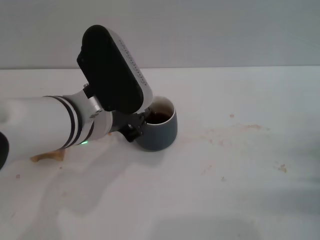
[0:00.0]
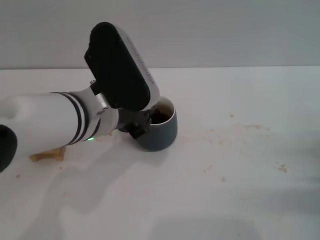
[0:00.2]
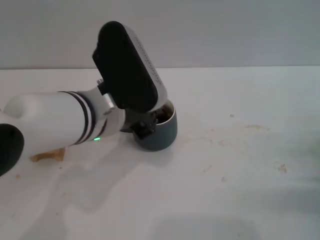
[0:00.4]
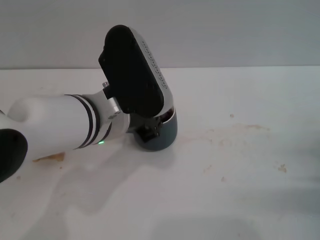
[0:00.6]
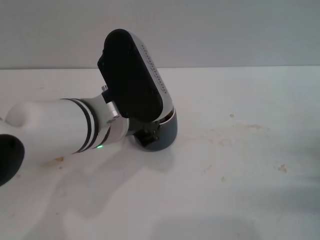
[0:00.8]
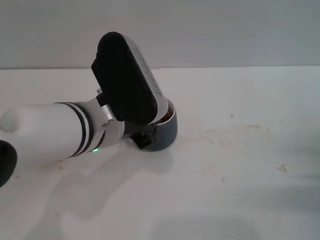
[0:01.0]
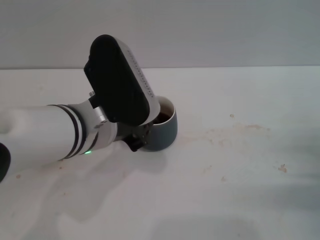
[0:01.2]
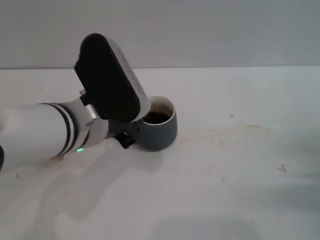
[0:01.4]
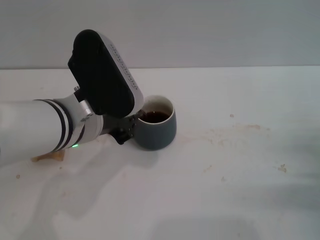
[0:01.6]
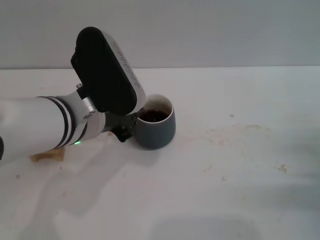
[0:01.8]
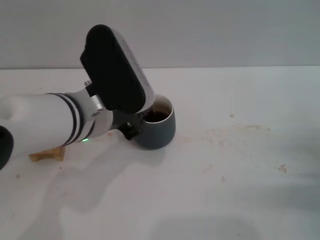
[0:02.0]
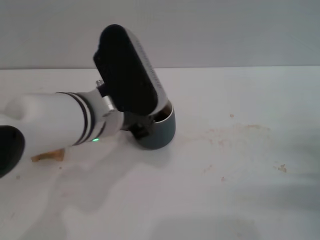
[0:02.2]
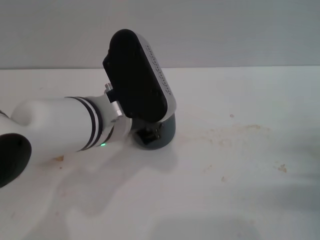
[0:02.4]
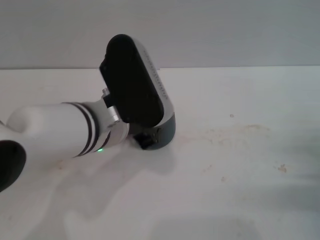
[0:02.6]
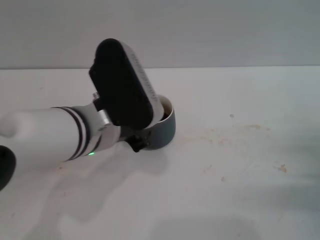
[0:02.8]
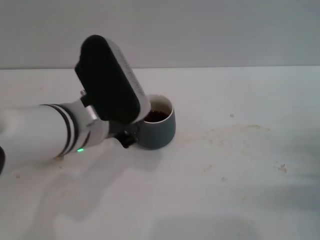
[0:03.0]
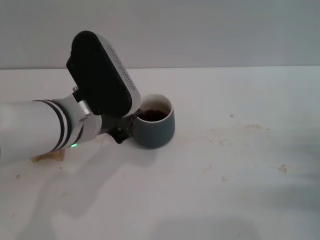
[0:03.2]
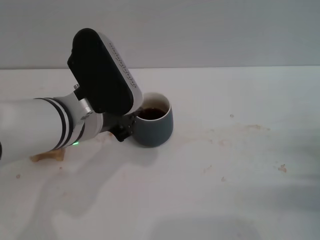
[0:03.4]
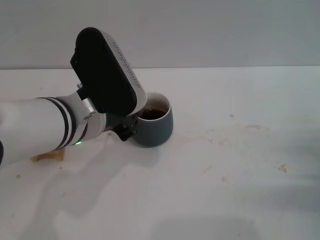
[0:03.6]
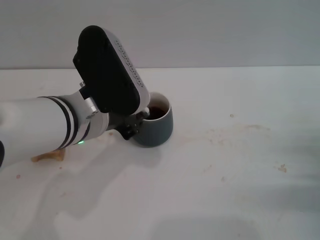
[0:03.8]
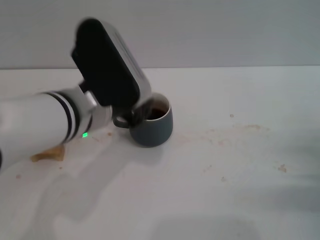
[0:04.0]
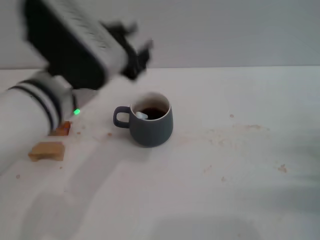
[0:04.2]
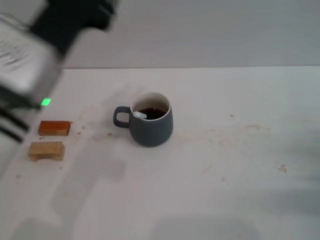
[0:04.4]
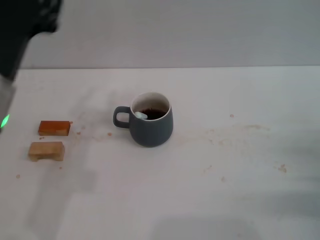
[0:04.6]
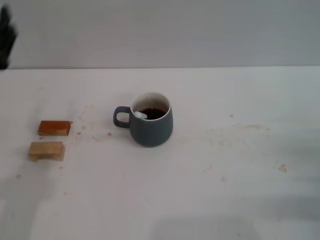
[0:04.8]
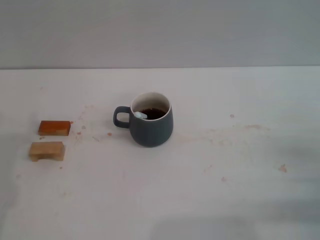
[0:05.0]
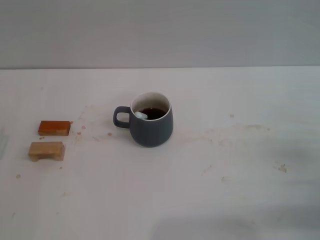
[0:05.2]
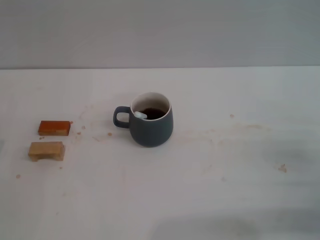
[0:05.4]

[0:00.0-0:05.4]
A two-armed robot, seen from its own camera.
Task of the whole recording: Move the grey cup to the center, lift the blue spoon, stir it three times in the cup, and put the spoon into the cup.
Step, 0:00.0 to 0:04.0: Stir the coffee in the cup with the left gripper.
0:00.0 to 0:04.0: The grippers stay close to where they were, moving slightly.
0:04.0 to 0:05.4: The left gripper is displaced to the left, downward and backward by roughly 30 cm, and opens up.
